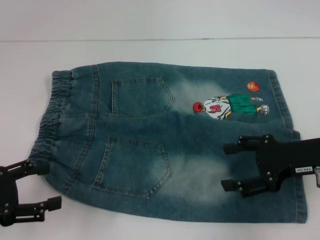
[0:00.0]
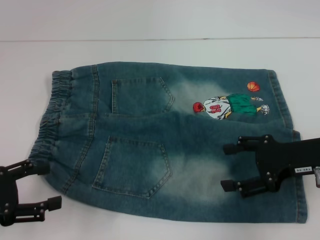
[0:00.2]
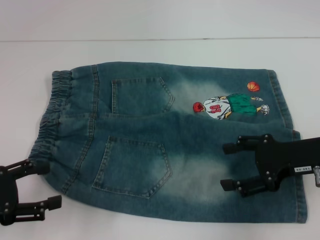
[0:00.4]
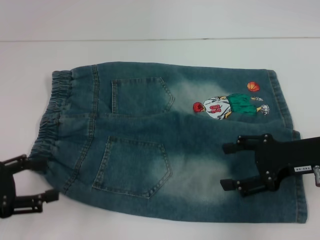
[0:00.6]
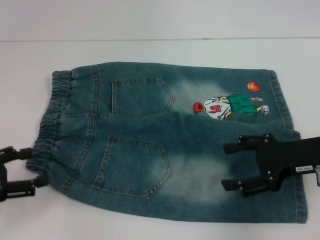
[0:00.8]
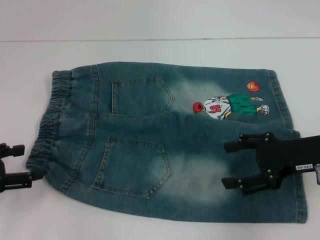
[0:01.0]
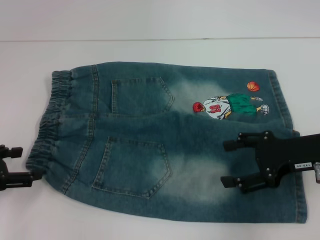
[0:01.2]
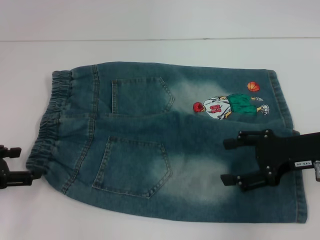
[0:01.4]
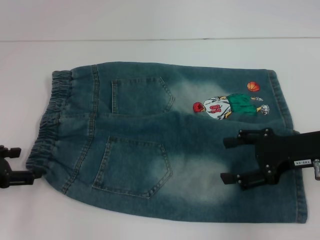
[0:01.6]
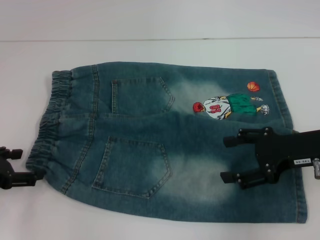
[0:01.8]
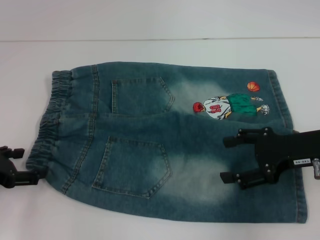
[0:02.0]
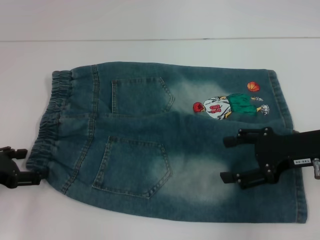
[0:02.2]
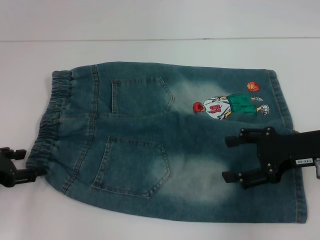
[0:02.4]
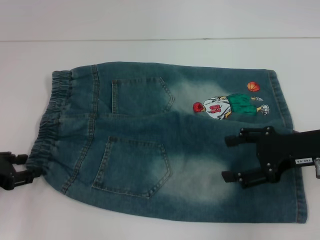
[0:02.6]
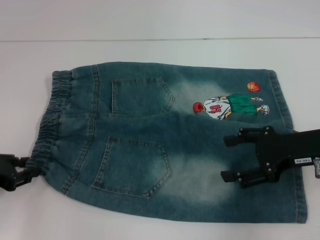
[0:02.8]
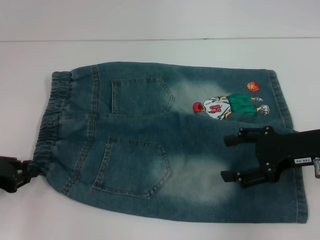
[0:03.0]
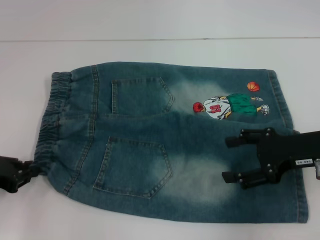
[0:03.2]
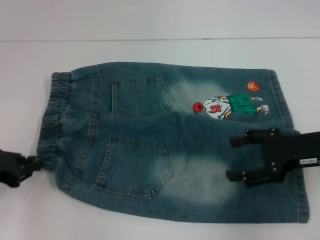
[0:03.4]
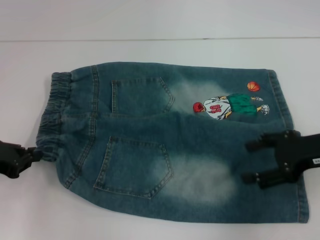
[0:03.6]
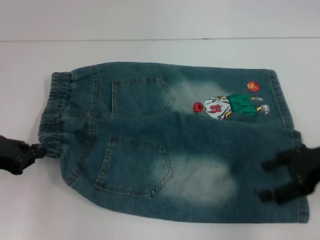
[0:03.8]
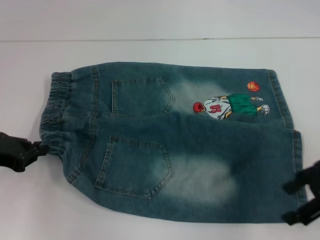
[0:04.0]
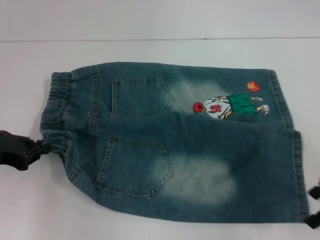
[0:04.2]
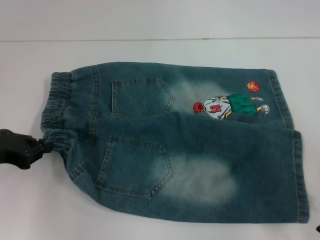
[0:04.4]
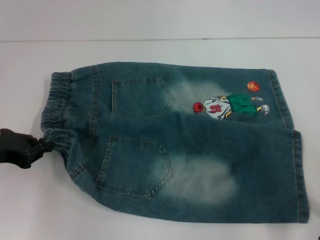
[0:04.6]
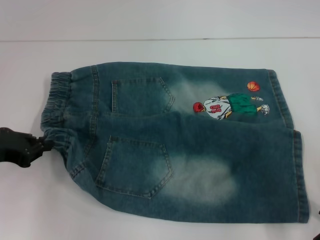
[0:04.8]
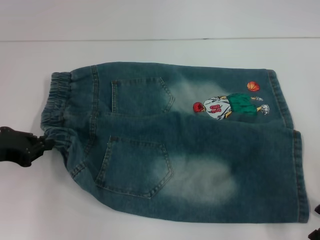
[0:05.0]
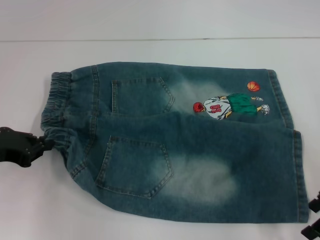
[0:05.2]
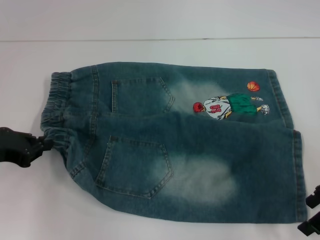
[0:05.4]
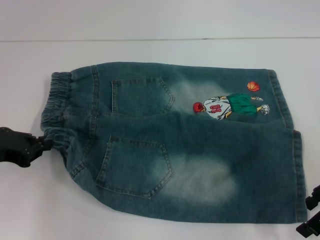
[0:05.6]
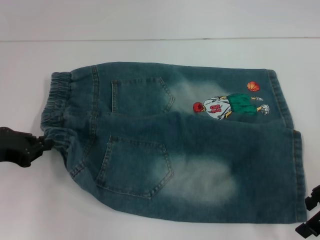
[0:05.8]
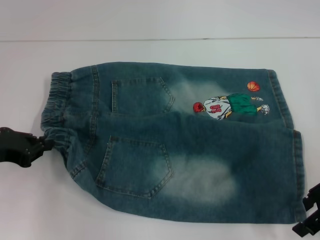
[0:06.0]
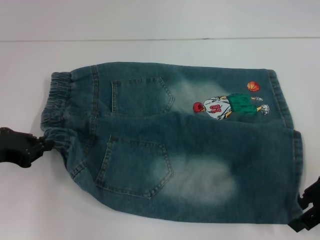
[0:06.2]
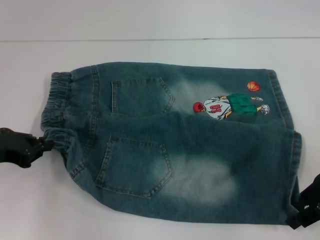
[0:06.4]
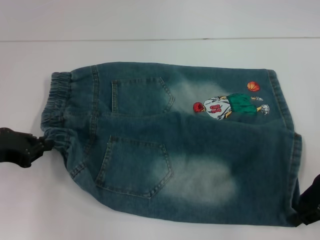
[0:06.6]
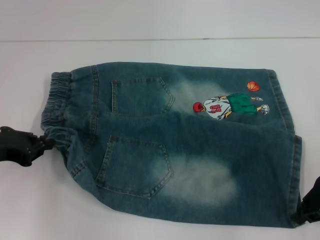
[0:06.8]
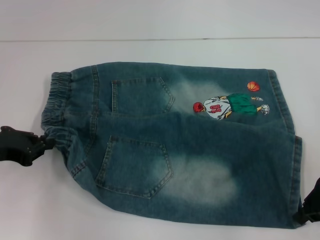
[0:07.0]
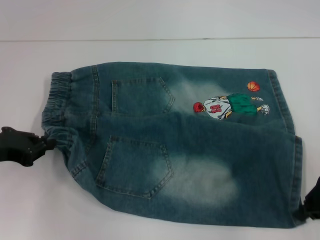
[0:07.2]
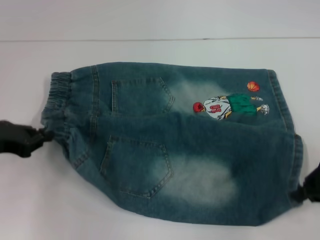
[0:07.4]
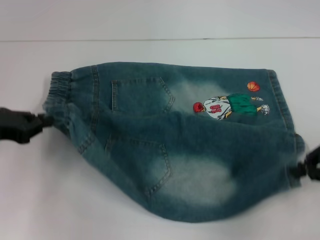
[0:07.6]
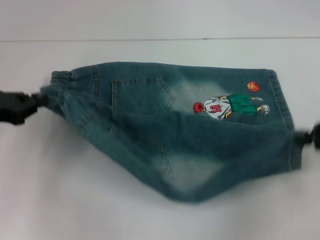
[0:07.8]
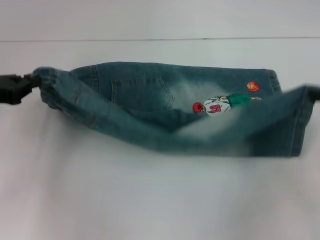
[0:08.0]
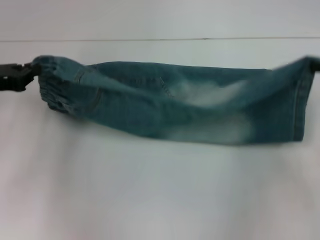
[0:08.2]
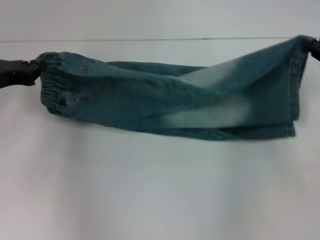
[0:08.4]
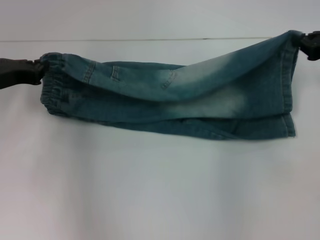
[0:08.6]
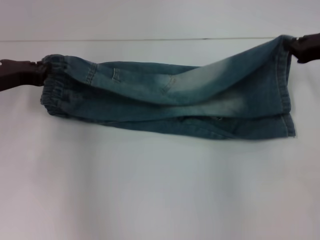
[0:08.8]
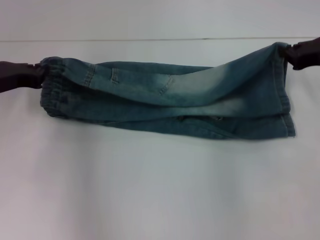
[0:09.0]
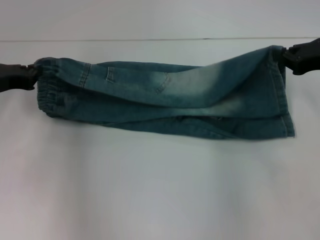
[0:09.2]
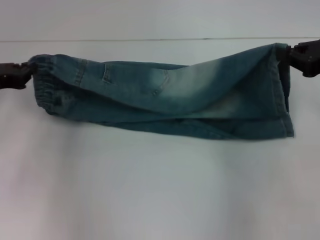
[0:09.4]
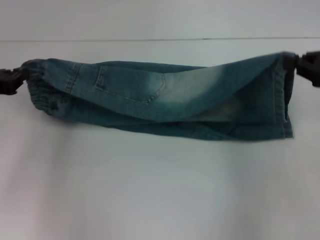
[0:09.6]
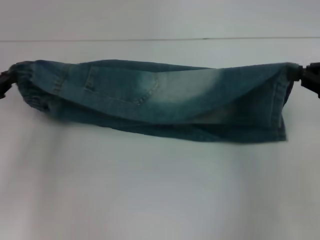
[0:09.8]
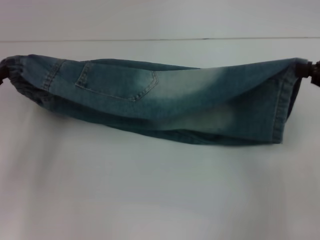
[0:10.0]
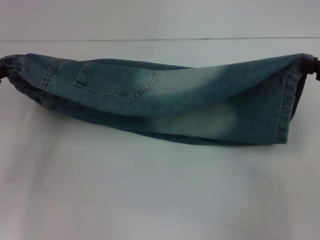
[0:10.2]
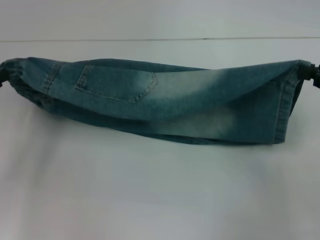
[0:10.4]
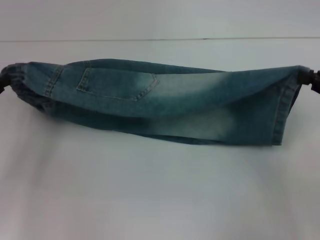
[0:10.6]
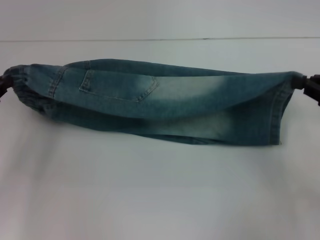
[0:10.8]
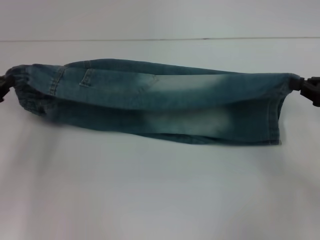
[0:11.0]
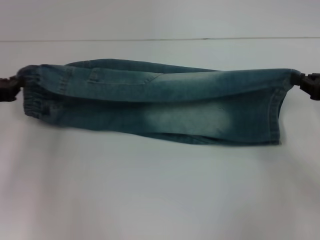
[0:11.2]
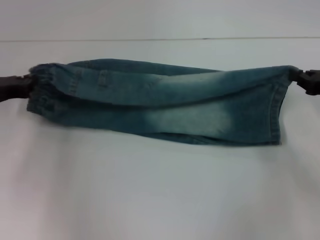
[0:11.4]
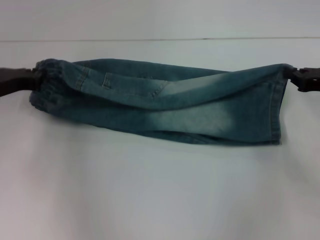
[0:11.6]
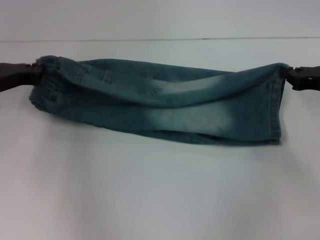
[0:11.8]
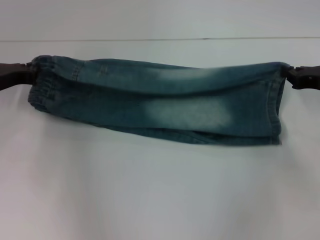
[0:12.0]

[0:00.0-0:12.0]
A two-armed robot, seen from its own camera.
Step, 0:00.0 to 0:03.4: Hold the lower left waistband with your left hand.
Step, 0:03.6 to 0:07.0: Grab the lower right pant leg with your right hand.
0:00.0 to 0:01.6: The left gripper travels forward by some 5 cm.
0:01.6 to 0:03.0: The left gripper closes its fingers.
0:03.0 to 0:04.4: The left gripper closes; the right gripper ends up approximately 5 cm from where it was.
0:04.4 to 0:06.0: The grippers make only small movements.
0:06.0 to 0:07.6: The right gripper closes.
0:07.6 to 0:09.0: The two grippers go about 10 cm forward.
0:09.0 to 0:10.4: The left gripper is displaced backward and to the left by approximately 10 cm. Meanwhile the right gripper shifts roughly 10 cm backward.
0:10.4 to 0:12.0: The left gripper travels forward and to the right by some 10 cm. Meanwhile the right gripper travels downward and forward by some 10 cm.

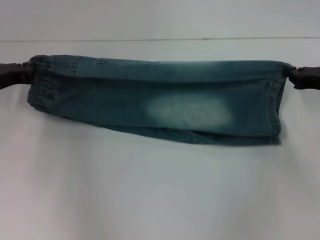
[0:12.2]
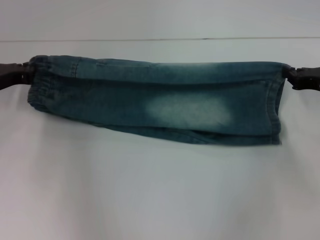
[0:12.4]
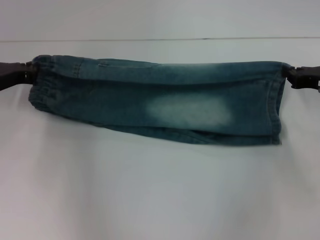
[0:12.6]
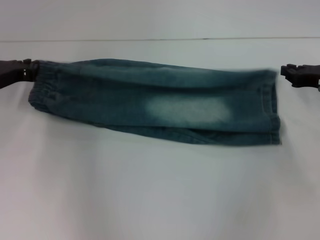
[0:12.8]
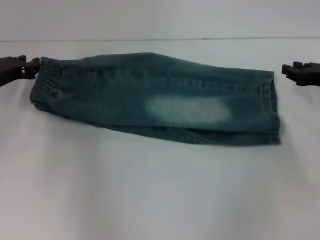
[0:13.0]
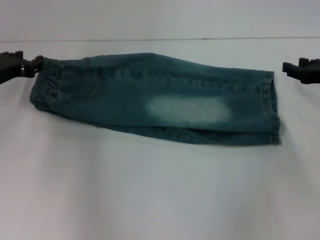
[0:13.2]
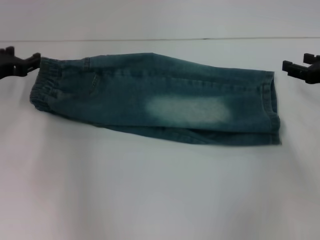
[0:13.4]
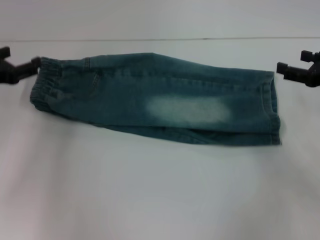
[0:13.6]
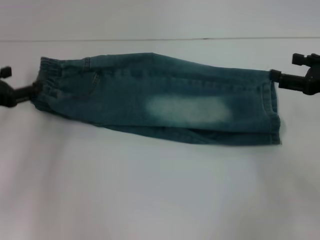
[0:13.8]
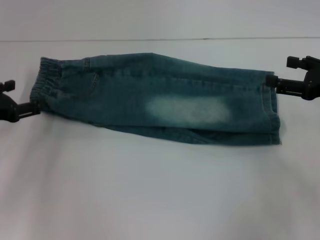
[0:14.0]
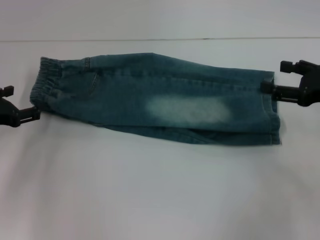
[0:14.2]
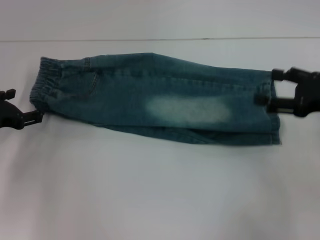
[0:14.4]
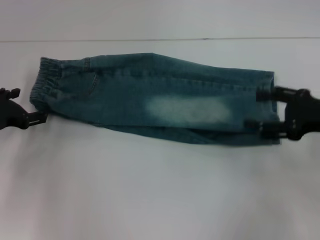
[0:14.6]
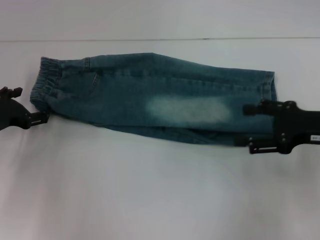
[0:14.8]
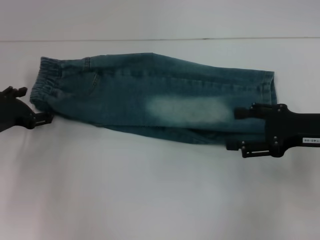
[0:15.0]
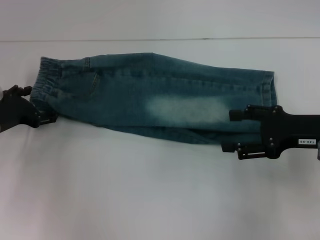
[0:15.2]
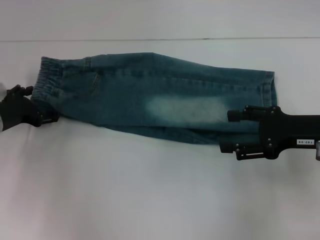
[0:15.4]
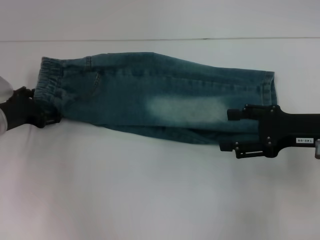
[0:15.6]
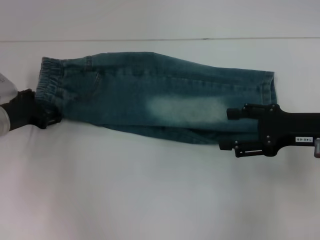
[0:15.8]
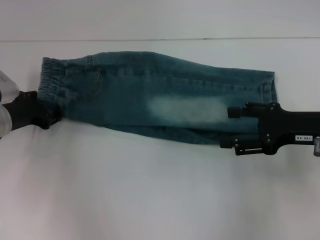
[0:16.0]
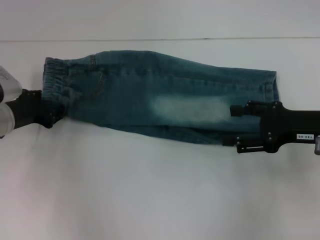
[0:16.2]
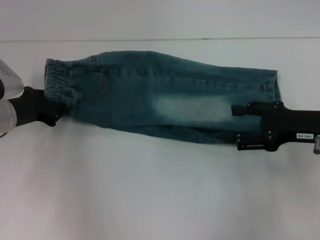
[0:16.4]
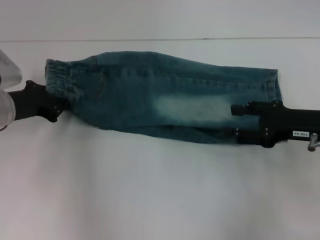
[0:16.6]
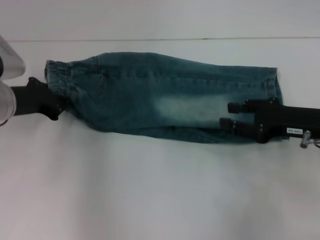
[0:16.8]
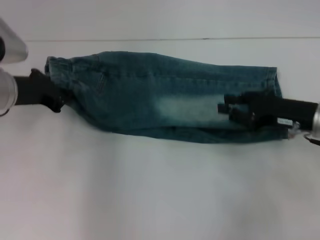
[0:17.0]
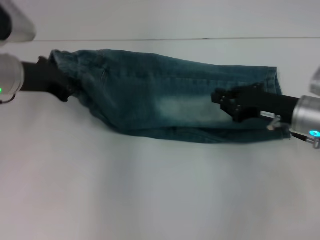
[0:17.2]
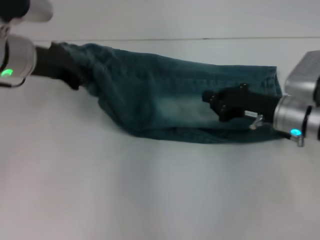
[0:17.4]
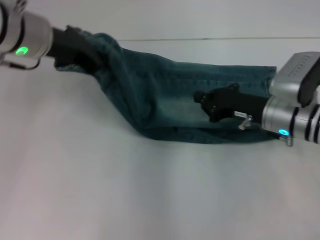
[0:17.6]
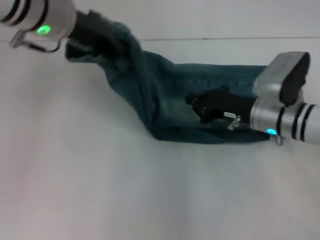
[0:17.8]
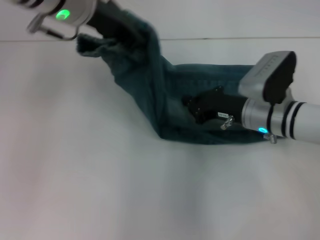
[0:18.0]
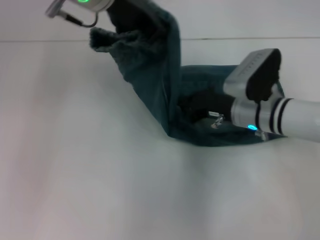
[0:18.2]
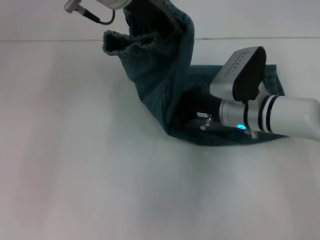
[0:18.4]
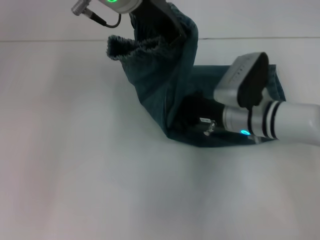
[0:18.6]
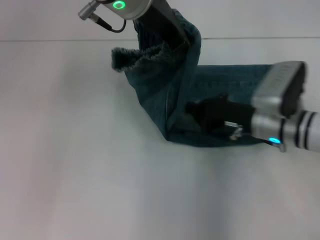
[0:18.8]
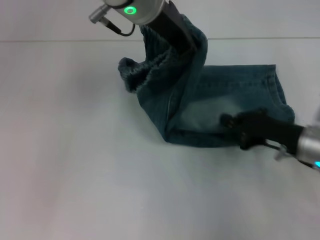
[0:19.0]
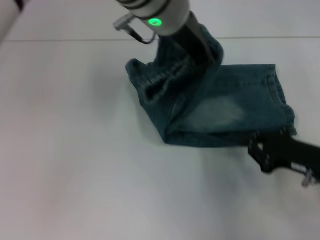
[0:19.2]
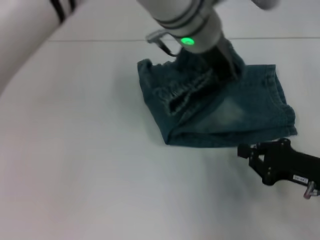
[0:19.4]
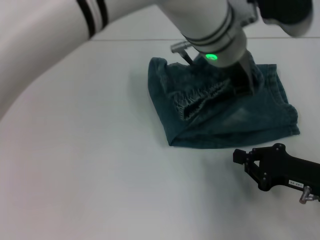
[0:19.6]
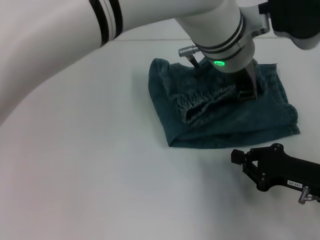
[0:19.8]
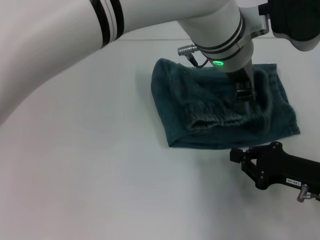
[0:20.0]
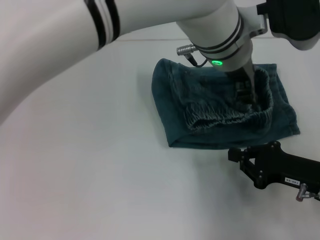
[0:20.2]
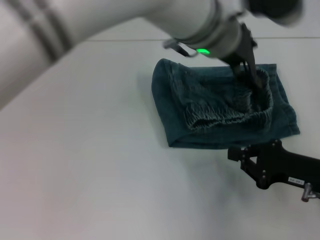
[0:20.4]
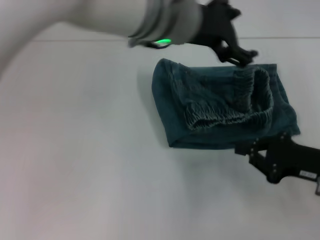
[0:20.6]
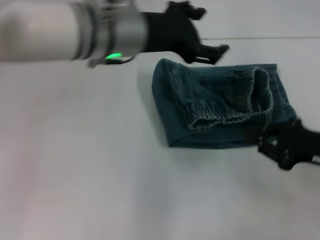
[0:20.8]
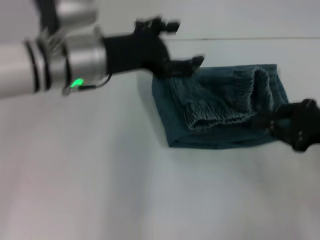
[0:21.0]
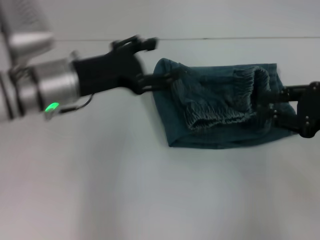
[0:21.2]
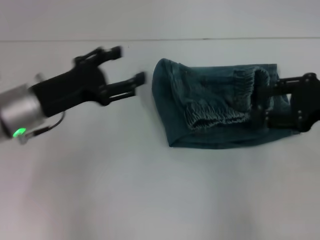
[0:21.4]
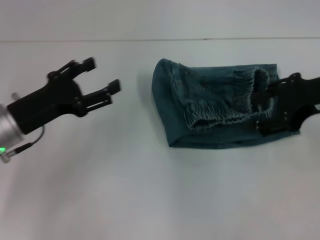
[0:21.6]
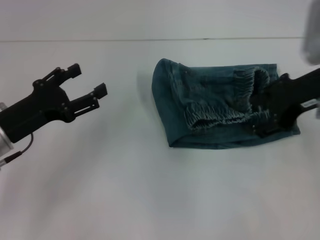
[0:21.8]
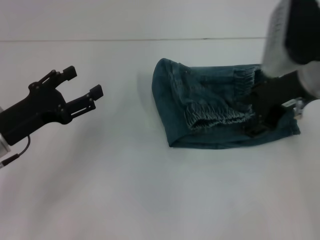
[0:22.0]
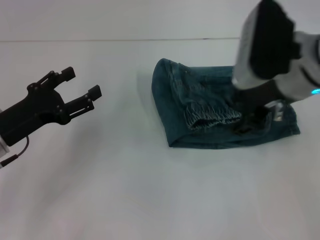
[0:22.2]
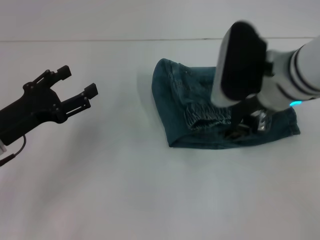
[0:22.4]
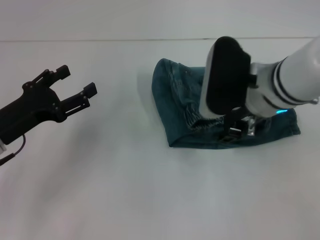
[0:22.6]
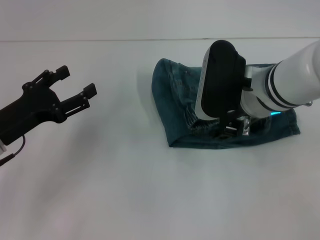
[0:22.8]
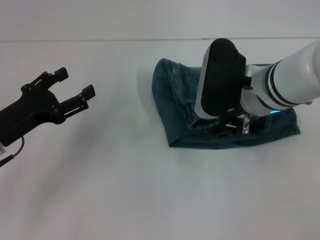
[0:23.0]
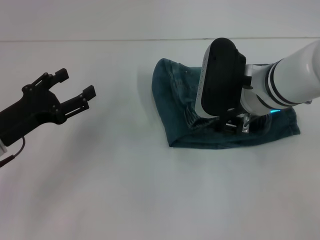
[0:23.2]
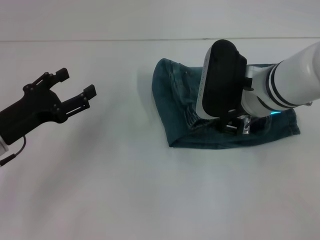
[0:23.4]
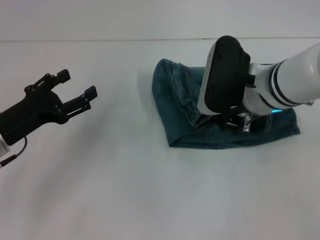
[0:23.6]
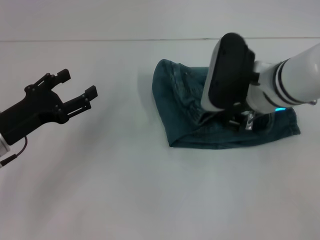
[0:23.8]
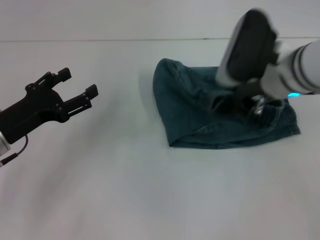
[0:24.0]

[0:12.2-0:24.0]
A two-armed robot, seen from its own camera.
Step, 0:13.6 to 0:16.4: Hold the waistband with your left hand.
Step, 0:16.6 to 0:18.8: Press the middle of the pants with your right hand.
Step, 0:19.0 to 0:20.2: Fold to the right with your left hand.
0:12.2 to 0:13.6: The left gripper opens up. Meanwhile the right gripper opens up.
0:13.6 to 0:15.2: The right gripper is displaced to the left by about 5 cm. The left gripper goes roughly 5 cm downward.
0:15.2 to 0:16.6: The left gripper closes.
0:16.6 to 0:18.2: The right gripper heads to the left, forward and downward, covering some 15 cm, and closes up, while the left gripper heads upward and to the right, covering roughly 25 cm.
0:18.2 to 0:19.6: The right gripper moves backward and to the right, approximately 15 cm; the left gripper moves to the right and downward, about 15 cm.
0:19.6 to 0:21.0: The right gripper heads upward, covering roughly 10 cm, while the left gripper shifts some 20 cm to the left, and opens up.
0:21.0 to 0:22.6: The right gripper travels to the left by some 20 cm, and opens up. Meanwhile the left gripper heads to the left, downward and backward, covering approximately 20 cm.
0:22.6 to 0:24.0: The right gripper closes up.
